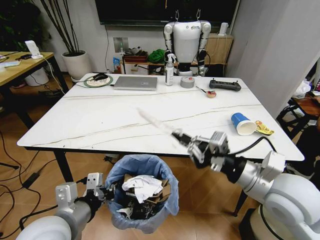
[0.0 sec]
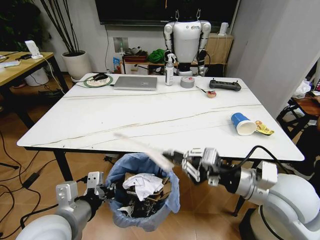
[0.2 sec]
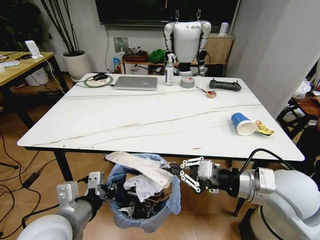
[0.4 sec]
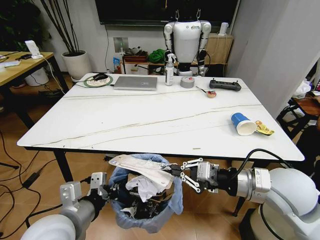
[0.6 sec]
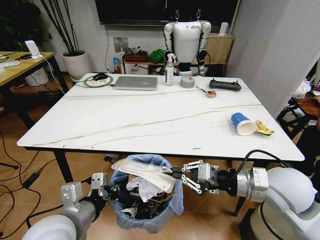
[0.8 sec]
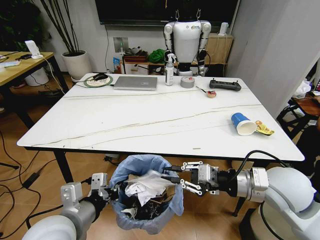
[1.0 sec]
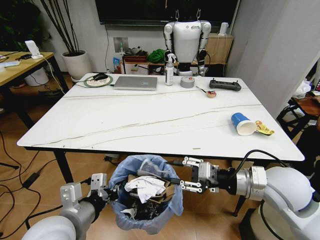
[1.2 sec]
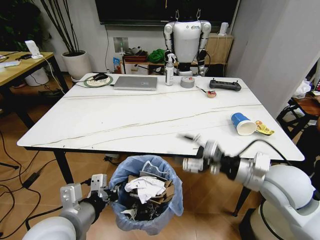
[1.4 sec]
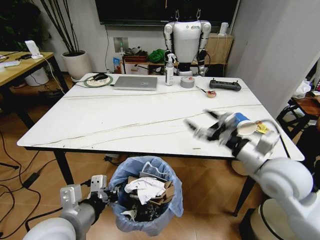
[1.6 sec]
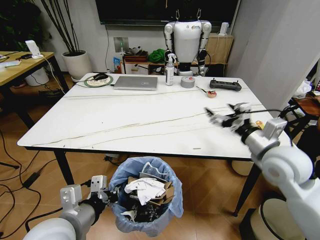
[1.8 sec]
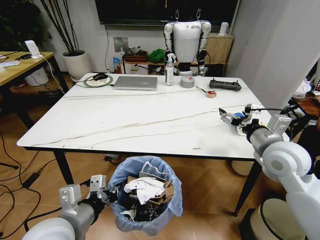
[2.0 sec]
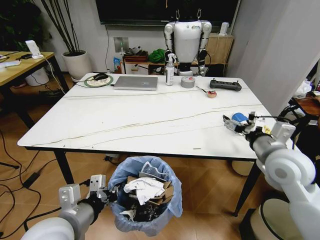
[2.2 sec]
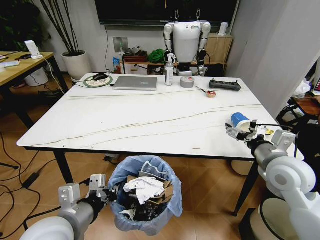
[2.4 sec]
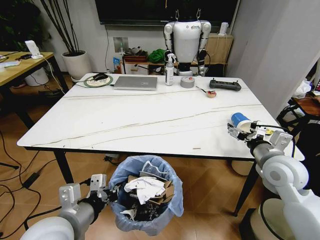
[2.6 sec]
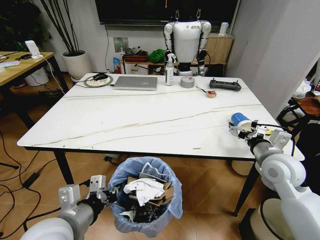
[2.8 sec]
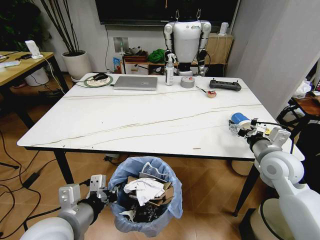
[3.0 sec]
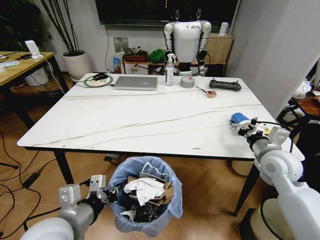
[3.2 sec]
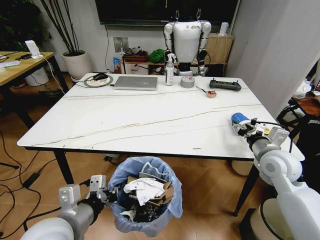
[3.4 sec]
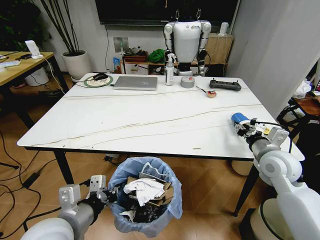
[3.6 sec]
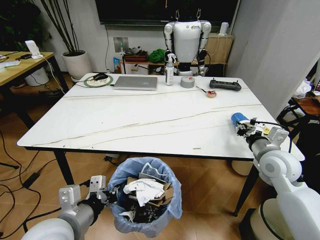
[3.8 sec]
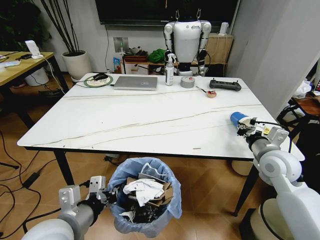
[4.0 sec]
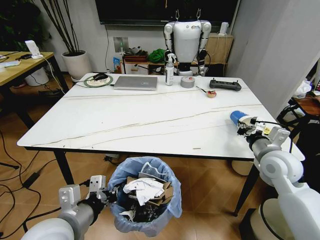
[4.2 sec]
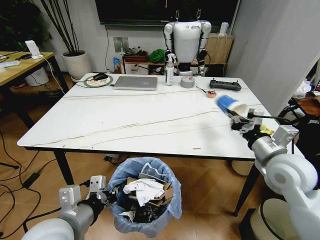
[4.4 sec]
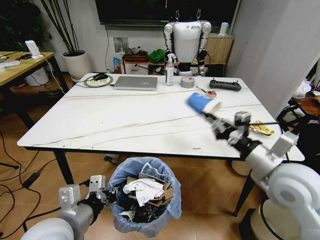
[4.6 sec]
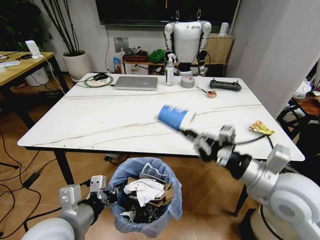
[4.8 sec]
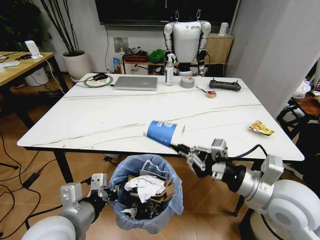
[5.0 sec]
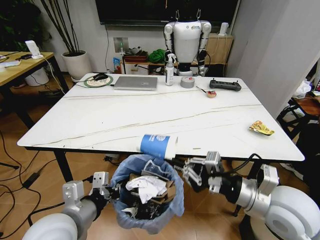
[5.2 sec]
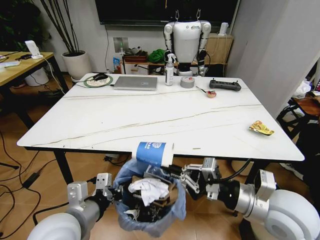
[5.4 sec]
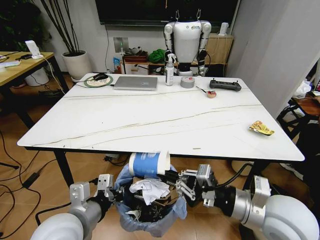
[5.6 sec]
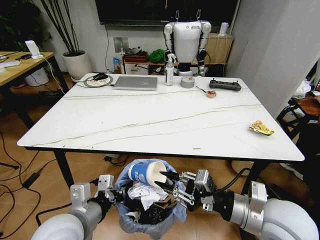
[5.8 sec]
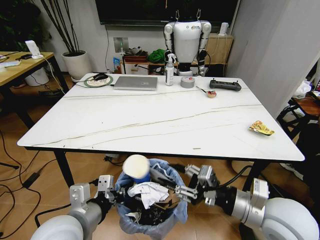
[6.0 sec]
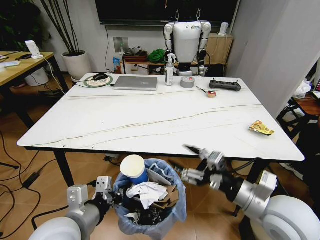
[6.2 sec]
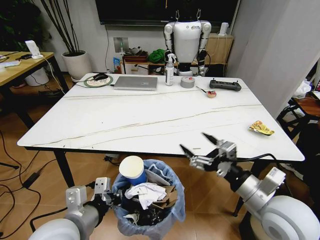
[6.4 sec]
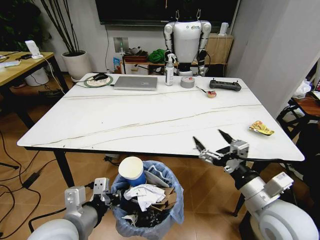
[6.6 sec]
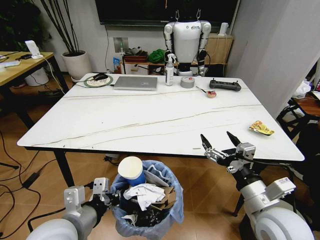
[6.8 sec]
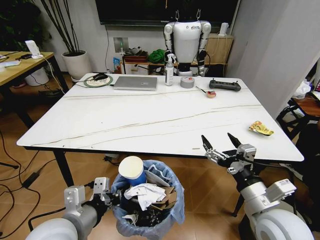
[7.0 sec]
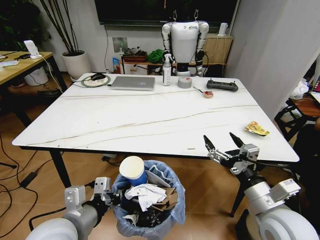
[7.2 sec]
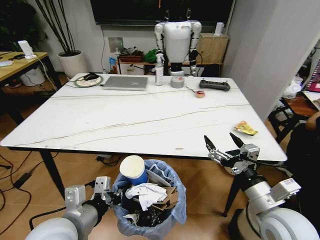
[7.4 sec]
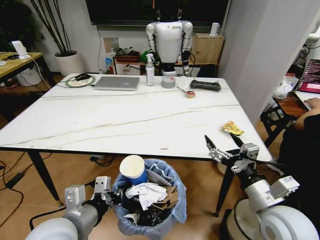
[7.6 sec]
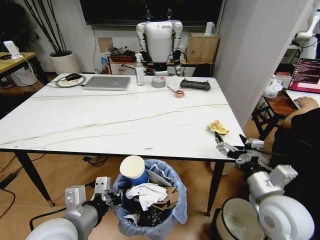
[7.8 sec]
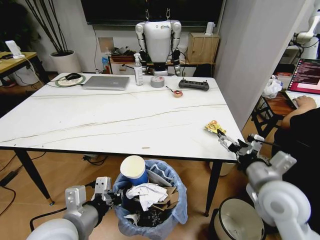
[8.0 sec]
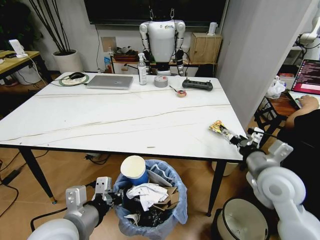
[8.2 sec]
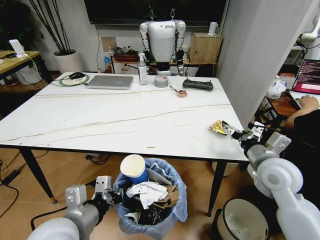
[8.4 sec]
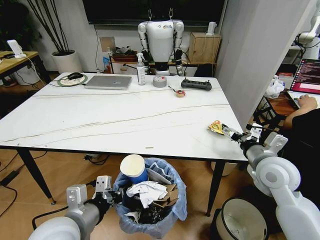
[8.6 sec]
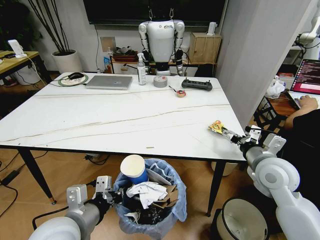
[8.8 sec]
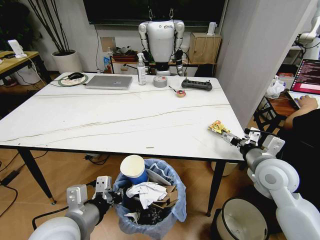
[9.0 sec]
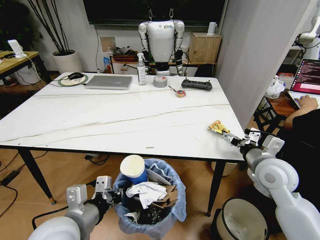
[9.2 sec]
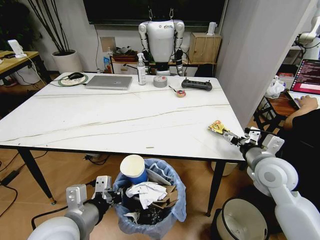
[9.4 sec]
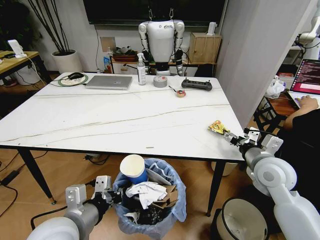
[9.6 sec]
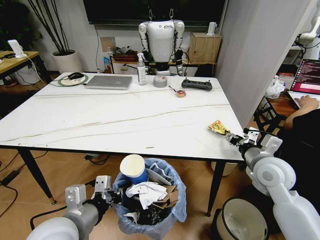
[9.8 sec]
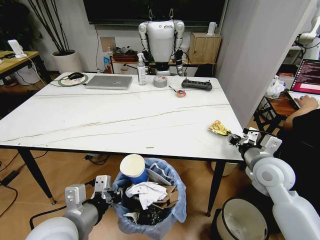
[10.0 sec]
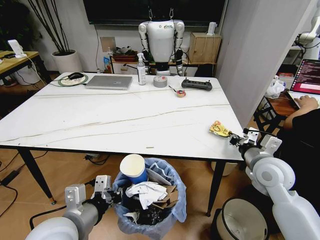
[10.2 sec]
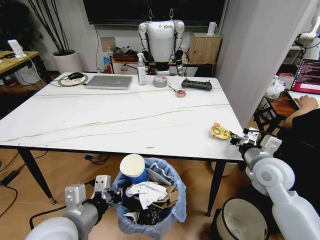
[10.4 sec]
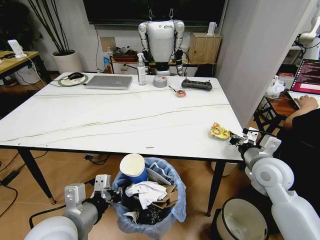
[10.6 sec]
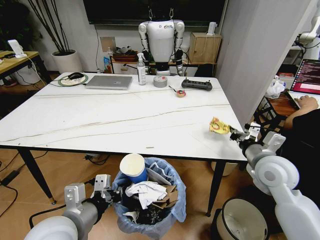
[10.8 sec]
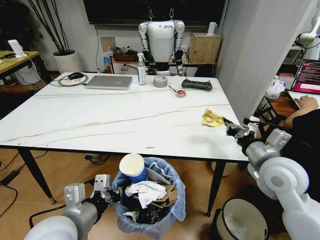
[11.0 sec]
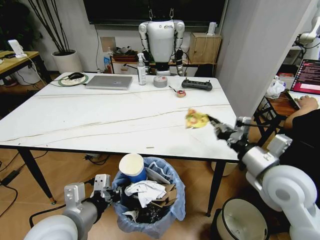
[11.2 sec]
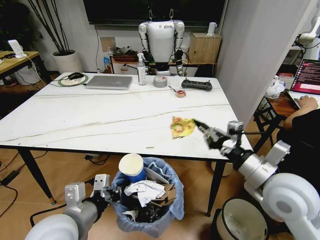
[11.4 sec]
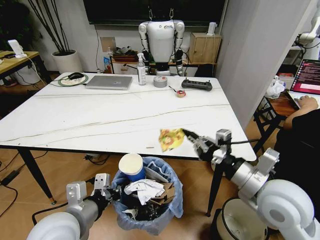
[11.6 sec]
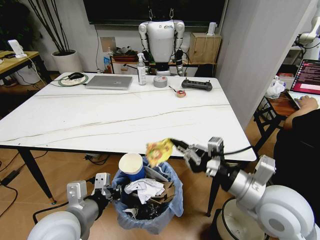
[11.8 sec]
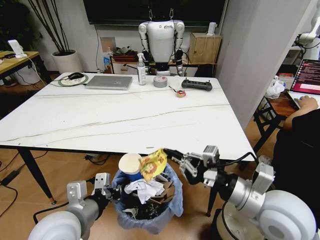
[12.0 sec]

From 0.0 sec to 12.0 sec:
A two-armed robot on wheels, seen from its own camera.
Task of the whole recording: Pick up the trash bin and place the trash from the table into it.
From 0.0 sec to 1.6 sec: The right gripper ends up some 5 cm from where it was, and opens its fingers.
From 1.6 sec to 3.0 sec: The right gripper heads forward, to the right and downward, covering roughly 10 cm.
From 3.0 sec to 4.4 sec: The right gripper changes place by about 5 cm, and closes its fingers.
From 4.4 sec to 6.0 sec: The right gripper moves backward and to the left, approximately 10 cm, and opens up.
From 6.0 sec to 7.6 sec: The right gripper opens.
From 7.6 sec to 9.0 sec: The right gripper is displaced forward by about 10 cm.
From 9.0 sec to 10.4 sec: The right gripper closes up.
From 10.4 sec to 12.0 sec: The right gripper is displaced backward and to the left by about 15 cm.

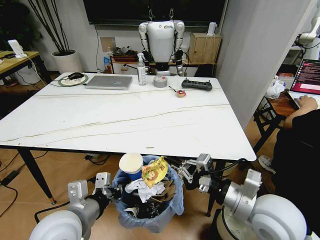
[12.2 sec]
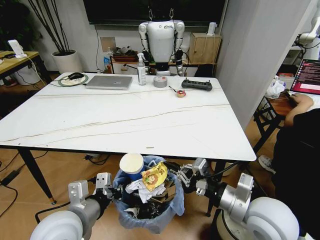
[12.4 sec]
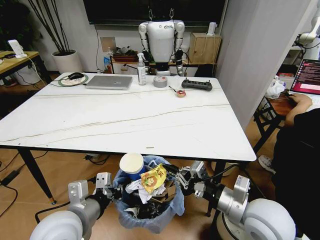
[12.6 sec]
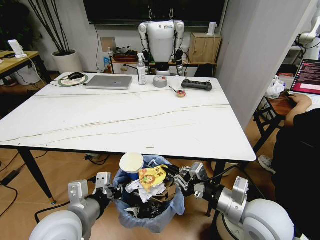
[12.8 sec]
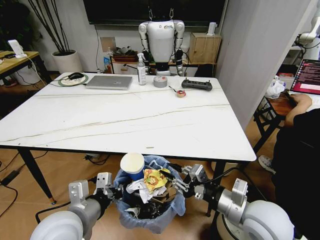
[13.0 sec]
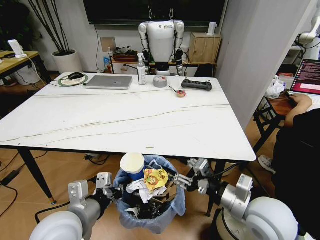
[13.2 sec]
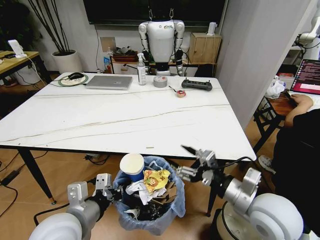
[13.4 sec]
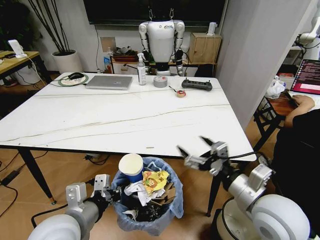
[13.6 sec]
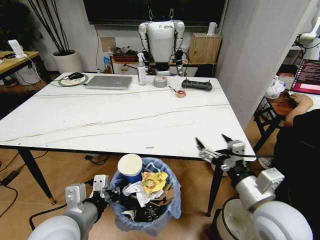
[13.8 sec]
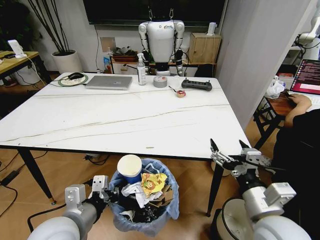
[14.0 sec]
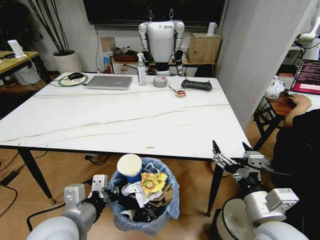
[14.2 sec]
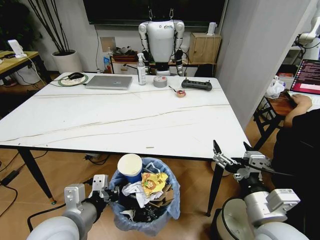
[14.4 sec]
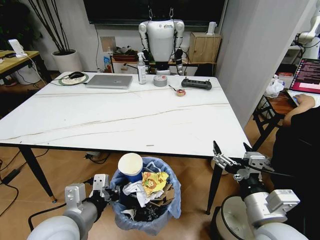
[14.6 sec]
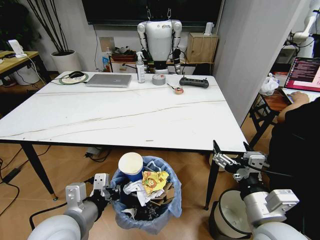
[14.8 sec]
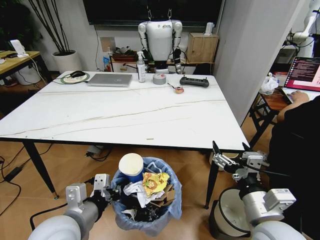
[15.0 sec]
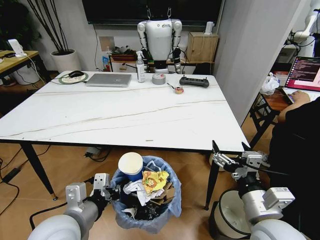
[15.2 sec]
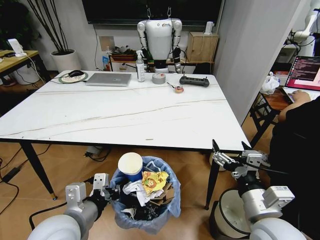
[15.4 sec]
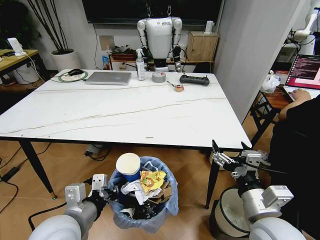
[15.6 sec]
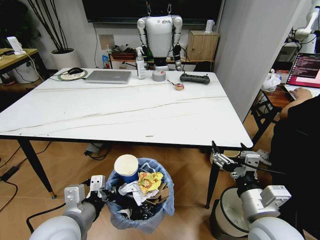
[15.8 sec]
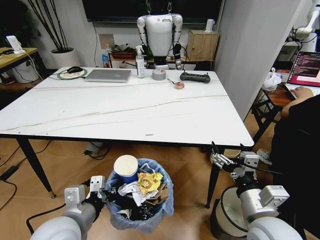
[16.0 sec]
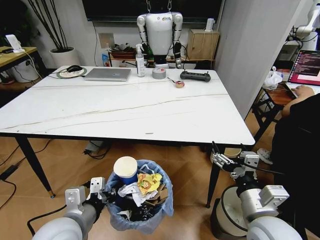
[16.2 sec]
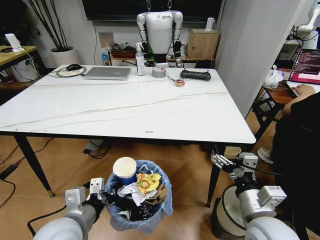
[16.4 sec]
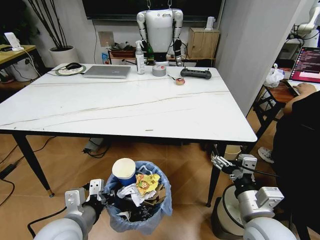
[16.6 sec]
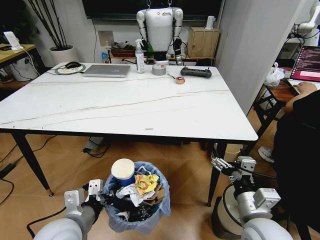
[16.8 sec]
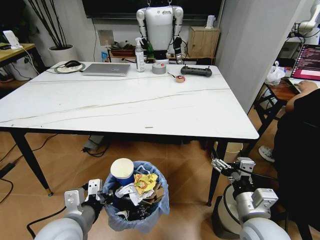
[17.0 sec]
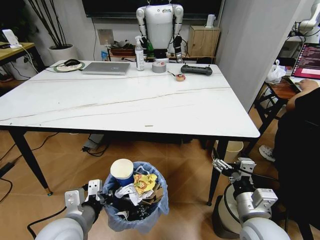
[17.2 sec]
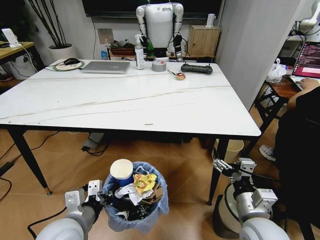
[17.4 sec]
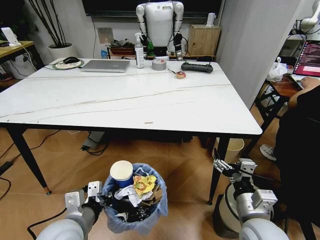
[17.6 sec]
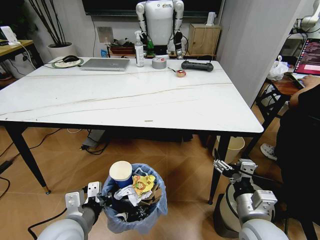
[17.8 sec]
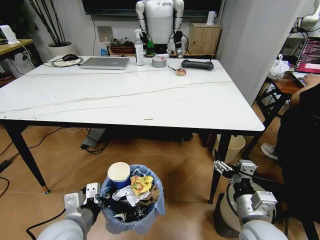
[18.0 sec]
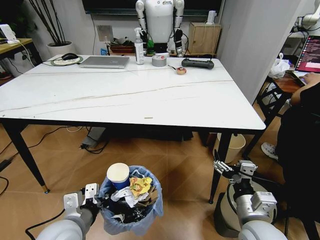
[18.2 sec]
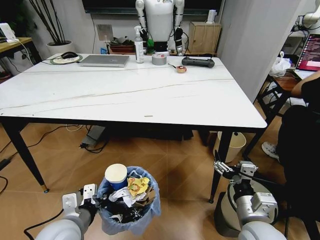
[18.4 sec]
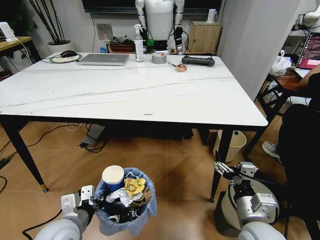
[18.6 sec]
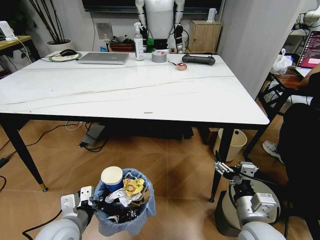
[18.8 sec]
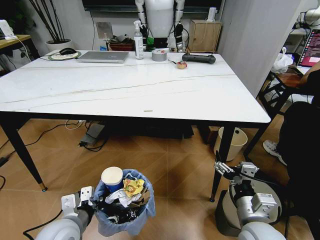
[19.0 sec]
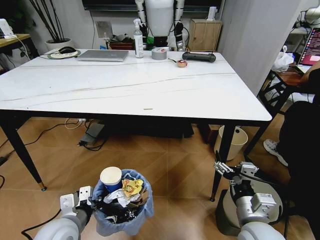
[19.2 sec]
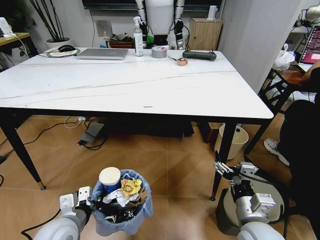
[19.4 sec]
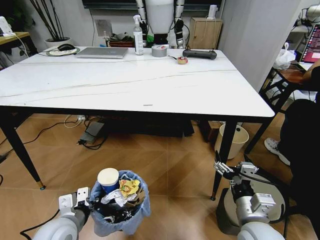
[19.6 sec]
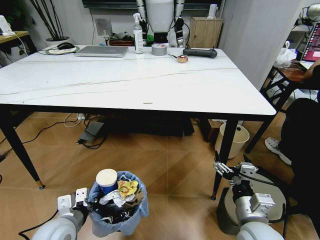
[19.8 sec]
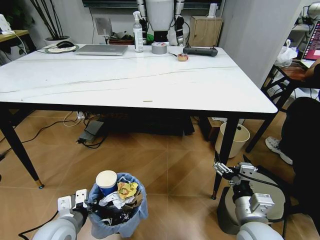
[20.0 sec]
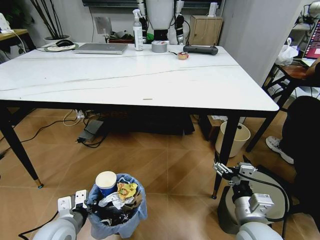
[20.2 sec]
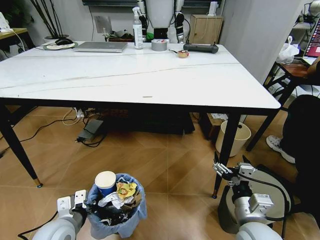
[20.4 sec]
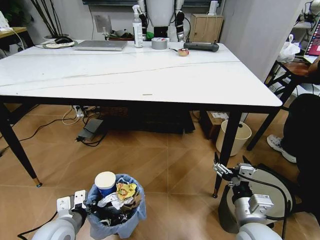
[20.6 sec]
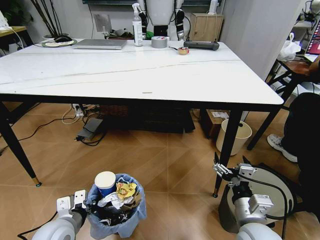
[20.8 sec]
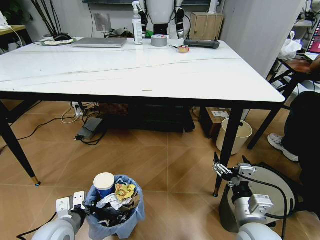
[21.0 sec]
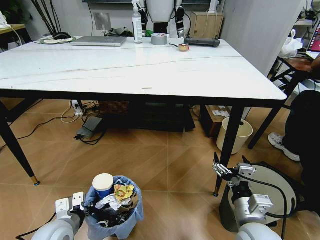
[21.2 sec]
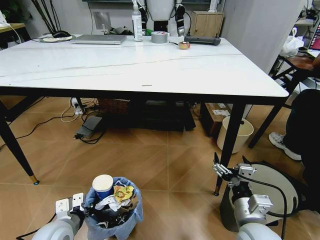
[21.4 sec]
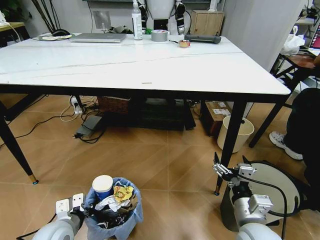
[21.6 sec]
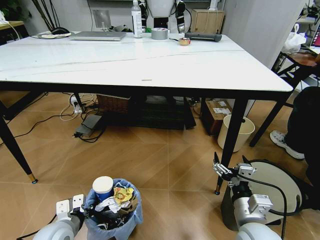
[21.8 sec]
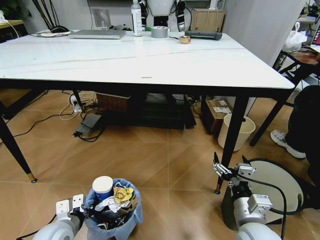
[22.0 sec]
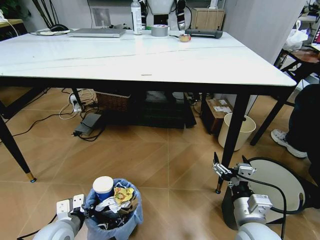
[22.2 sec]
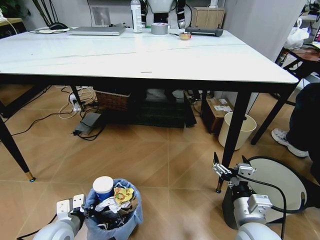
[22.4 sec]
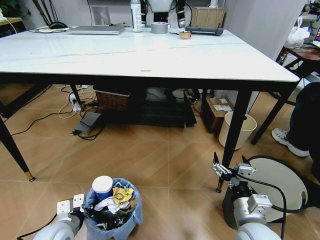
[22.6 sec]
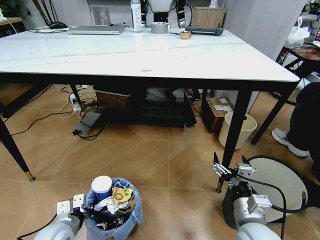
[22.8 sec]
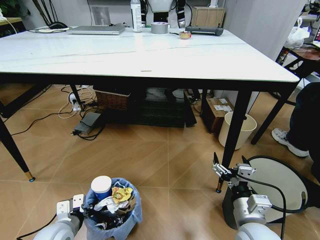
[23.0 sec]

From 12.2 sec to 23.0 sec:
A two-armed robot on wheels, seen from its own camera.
Task of the whole recording: Pick up the trash bin and place the trash from the table into it.
From 12.2 sec to 13.8 sec: The right gripper opens.
From 18.4 sec to 20.0 sec: The left gripper ends up roughly 5 cm from where it was.
